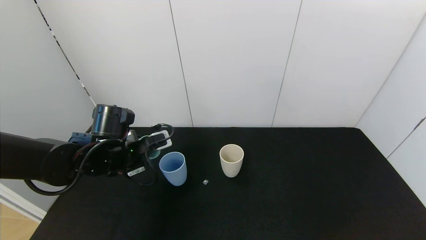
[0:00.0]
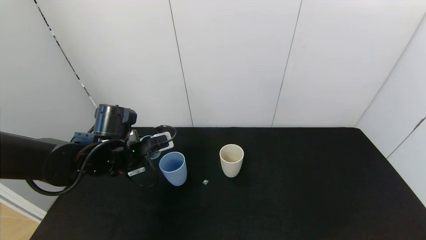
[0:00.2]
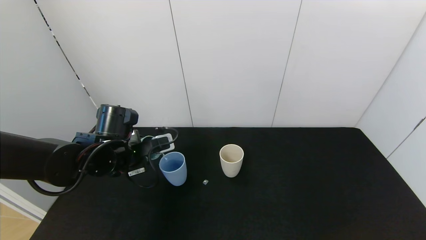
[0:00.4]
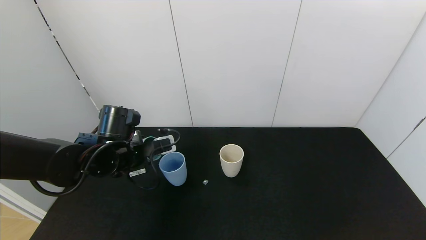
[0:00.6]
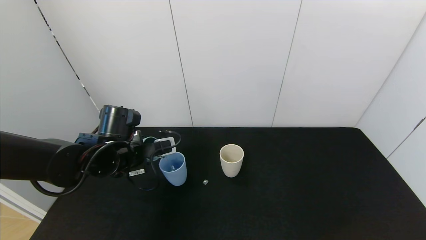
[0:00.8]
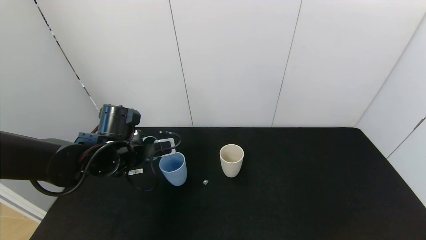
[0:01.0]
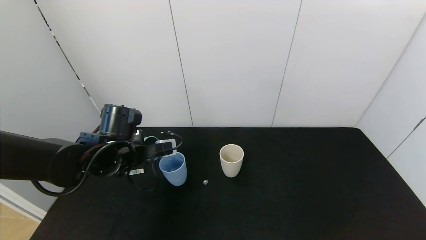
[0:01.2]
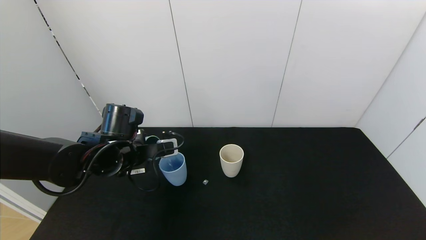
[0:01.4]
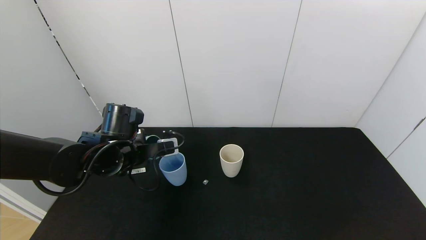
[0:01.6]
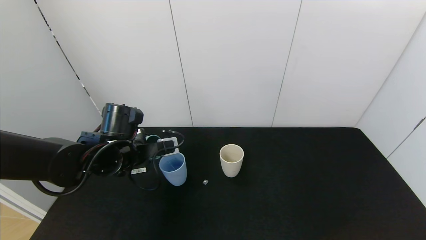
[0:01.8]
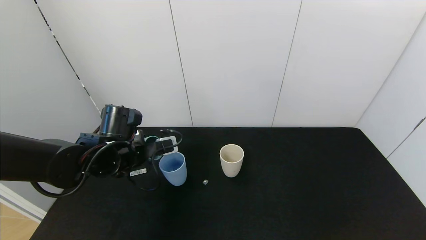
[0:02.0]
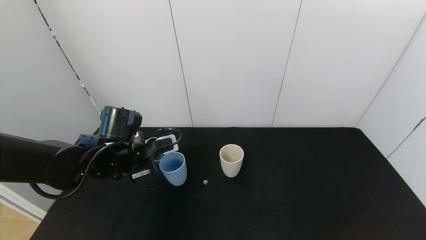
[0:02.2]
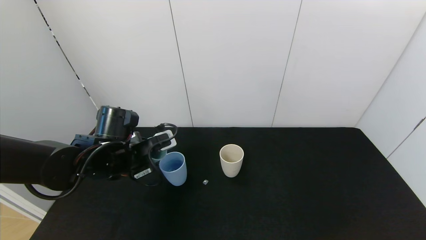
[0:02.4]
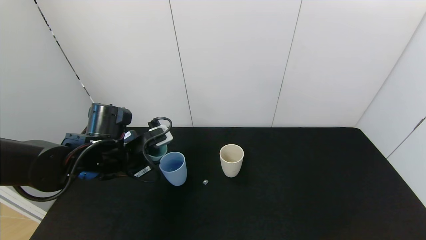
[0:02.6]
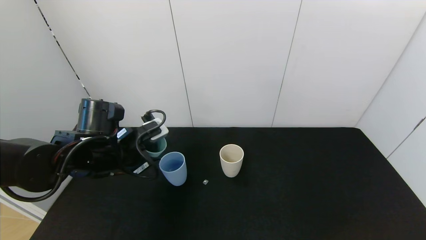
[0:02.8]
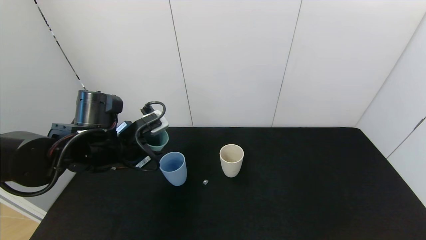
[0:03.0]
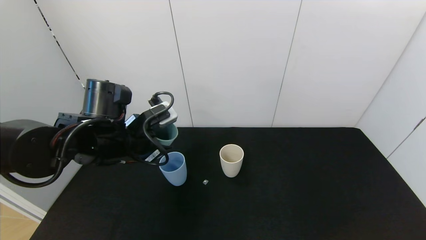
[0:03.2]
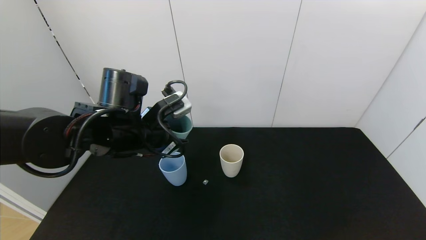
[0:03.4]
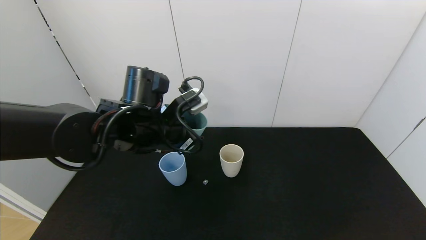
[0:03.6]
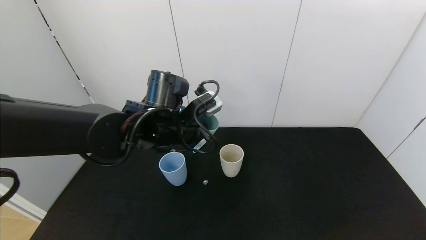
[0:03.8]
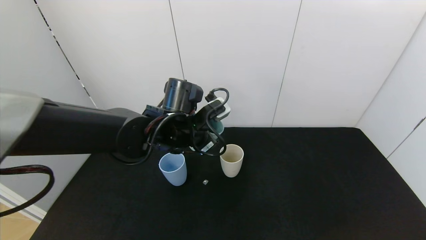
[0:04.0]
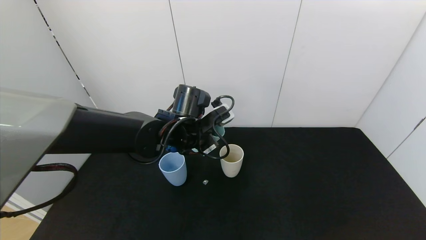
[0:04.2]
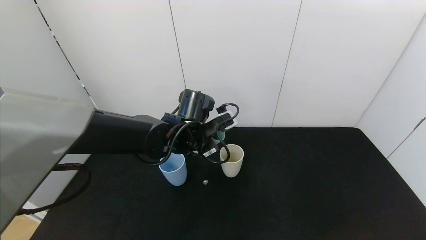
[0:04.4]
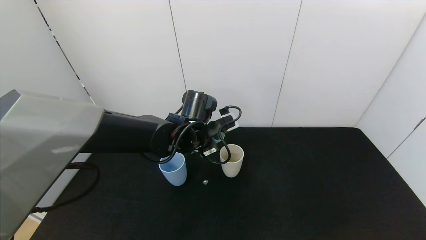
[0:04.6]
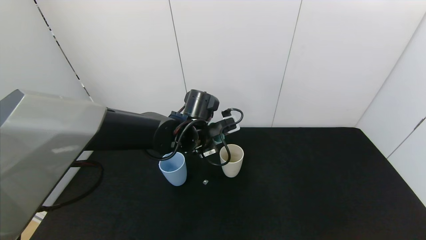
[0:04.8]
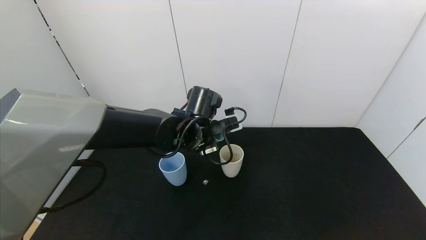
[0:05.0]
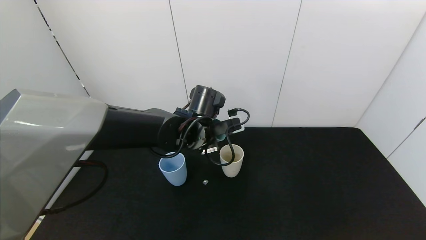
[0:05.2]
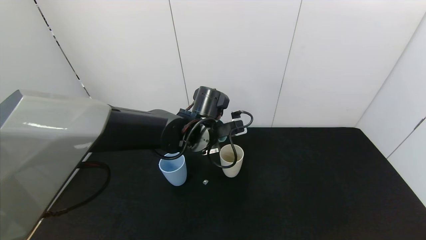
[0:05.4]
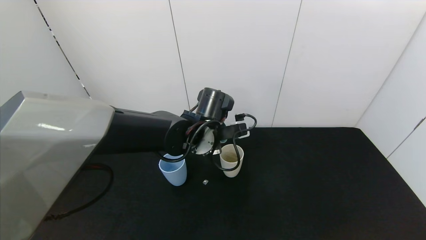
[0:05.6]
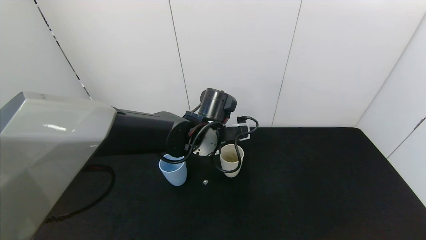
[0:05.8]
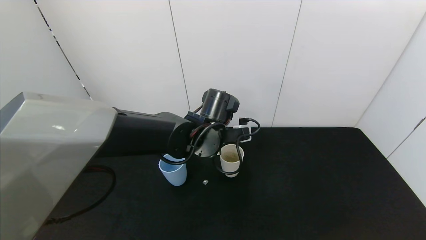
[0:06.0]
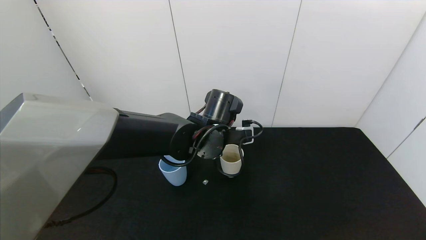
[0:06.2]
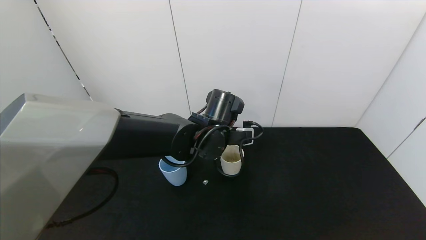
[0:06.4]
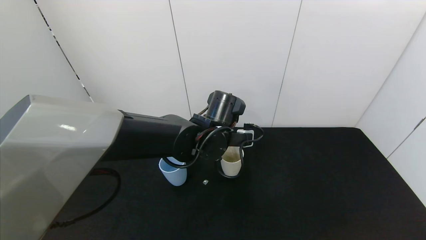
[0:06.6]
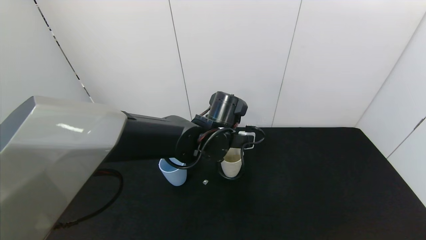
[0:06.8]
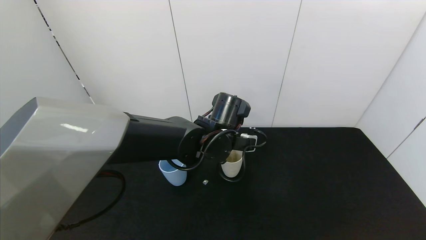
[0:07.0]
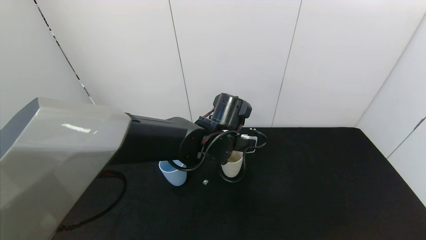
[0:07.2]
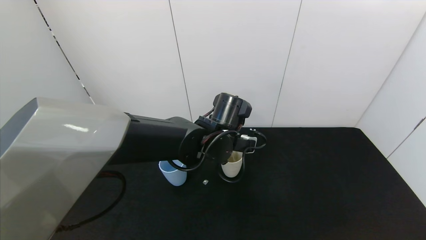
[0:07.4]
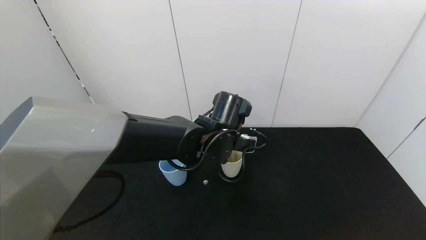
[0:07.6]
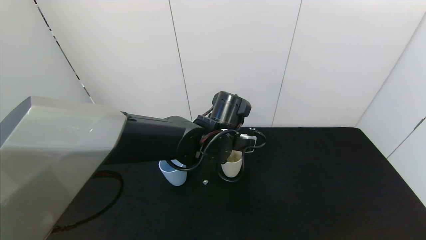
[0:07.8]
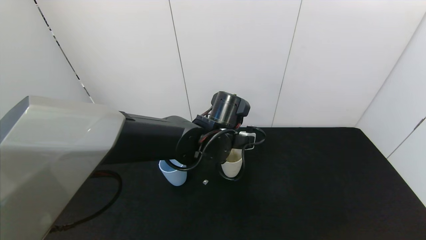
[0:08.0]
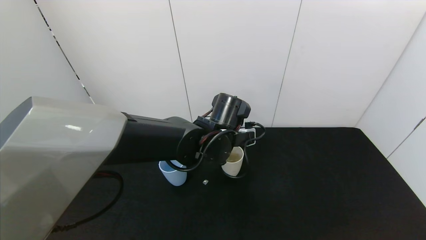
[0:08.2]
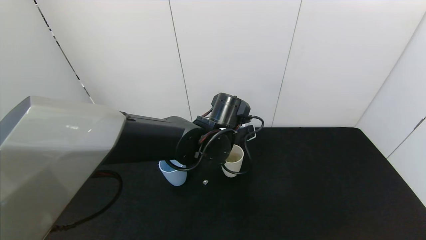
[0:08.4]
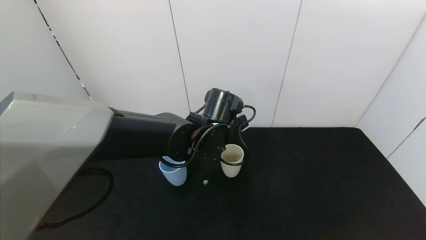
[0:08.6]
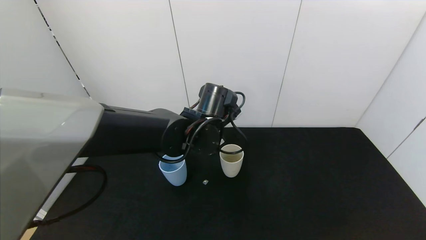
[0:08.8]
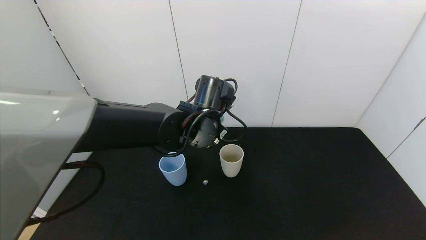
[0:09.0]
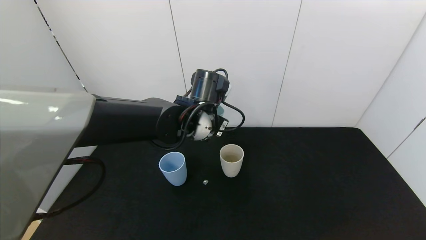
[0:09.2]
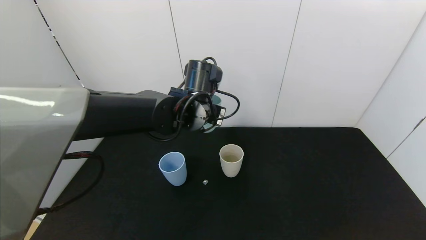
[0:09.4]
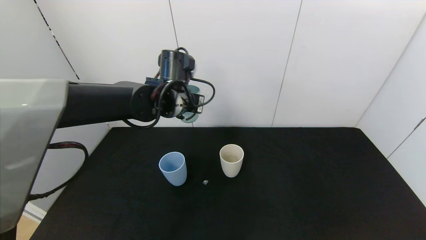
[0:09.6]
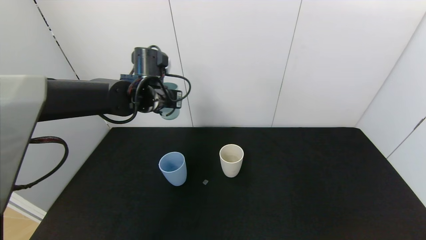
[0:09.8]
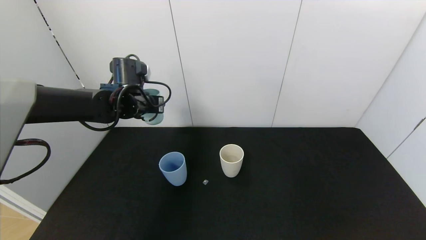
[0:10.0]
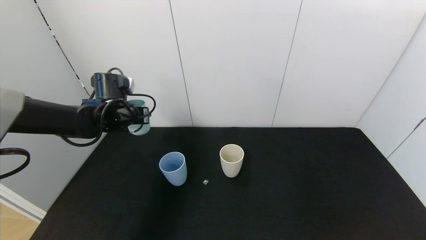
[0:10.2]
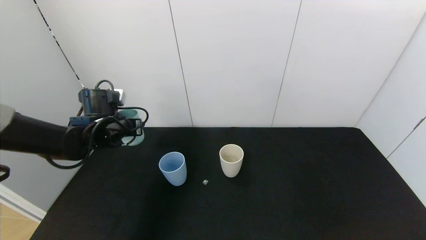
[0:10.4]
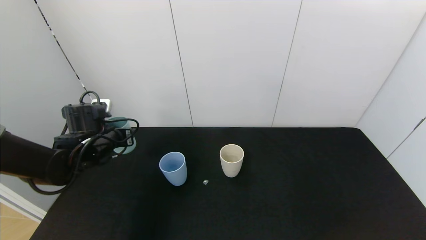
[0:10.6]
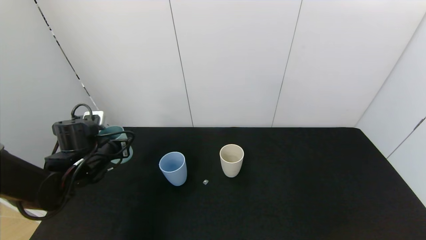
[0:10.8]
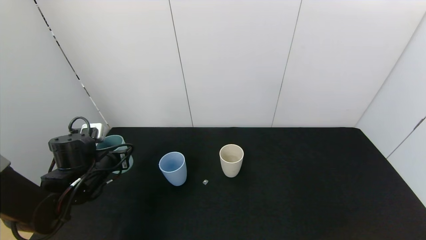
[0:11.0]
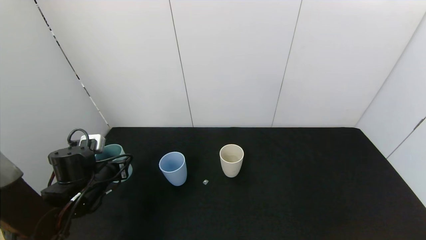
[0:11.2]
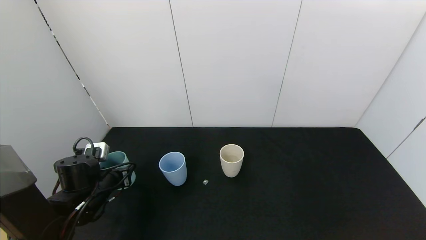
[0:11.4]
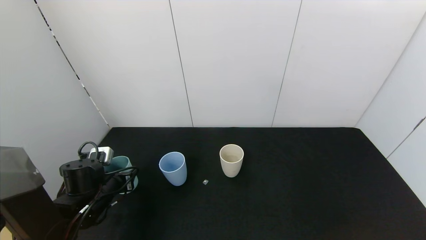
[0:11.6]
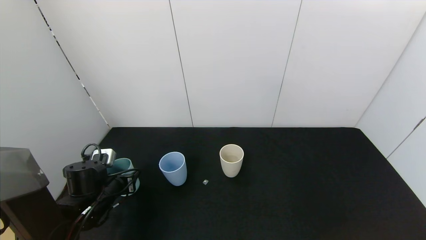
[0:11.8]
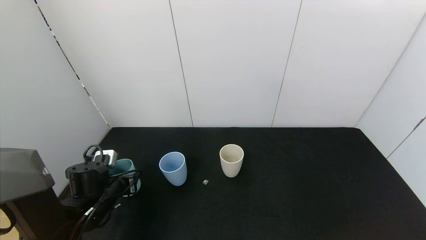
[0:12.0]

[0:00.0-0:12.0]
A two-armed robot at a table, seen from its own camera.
Task of the whole recording: use the gripper to pour the water into the other two cups on black table.
Step, 0:00.0 to 0:02.8: Pour water from green cup to blue cup with the left gripper.
Step, 0:03.0 to 0:08.8: Pour water from green cup to white cup with the left gripper.
0:00.0 to 0:01.6: The grippers move only a little.
0:03.0 to 0:04.4: The left gripper shifts some 15 cm to the right and forward.
0:06.0 to 0:07.6: The grippers make only small movements.
0:09.0 to 0:10.4: The left gripper is displaced to the left by about 25 cm.
0:10.4 to 0:12.0: The left gripper heads downward and backward, covering roughly 15 cm.

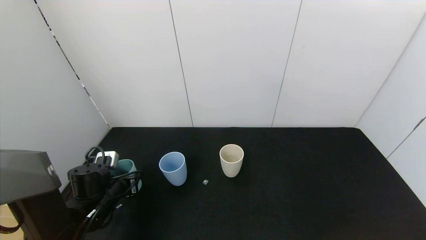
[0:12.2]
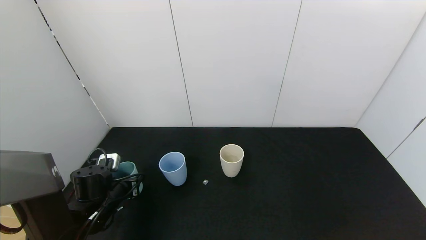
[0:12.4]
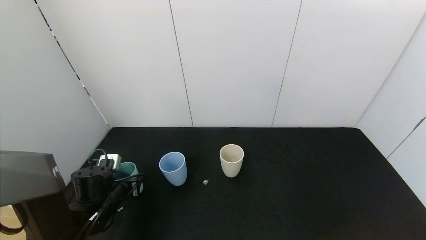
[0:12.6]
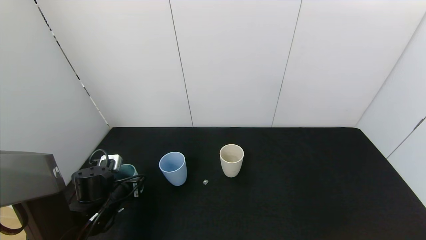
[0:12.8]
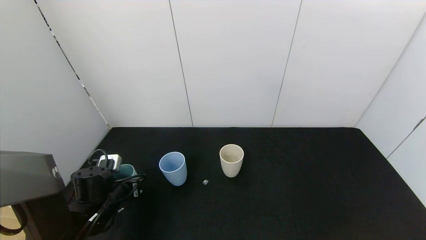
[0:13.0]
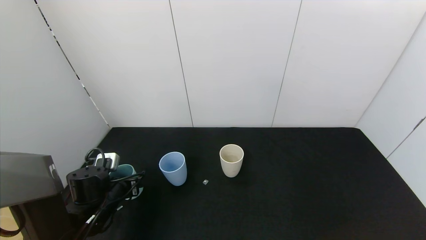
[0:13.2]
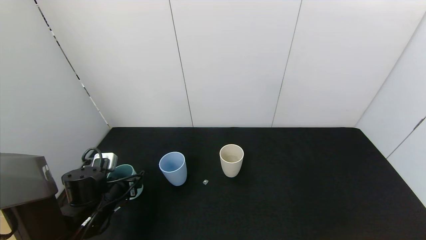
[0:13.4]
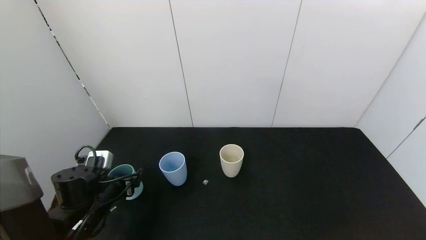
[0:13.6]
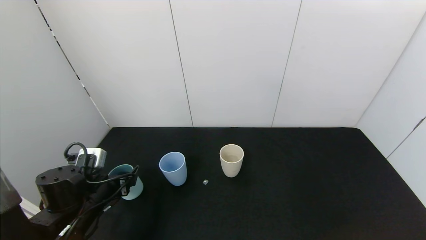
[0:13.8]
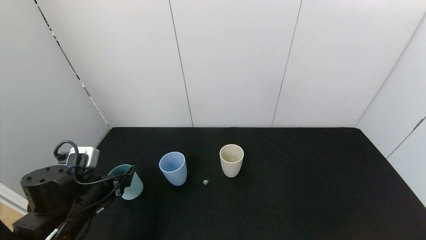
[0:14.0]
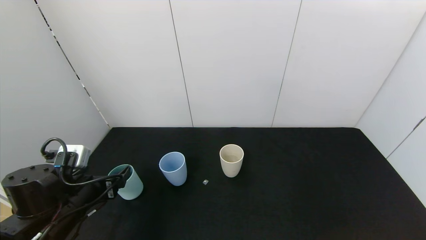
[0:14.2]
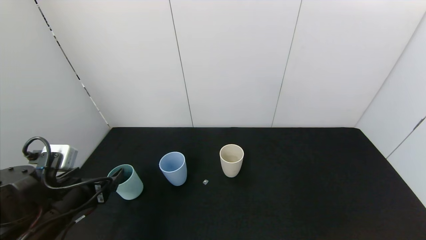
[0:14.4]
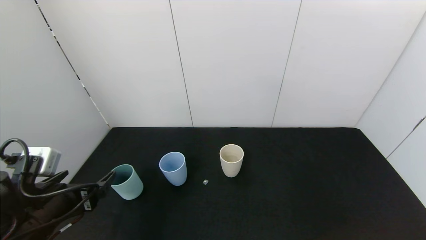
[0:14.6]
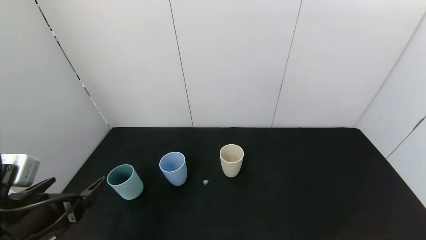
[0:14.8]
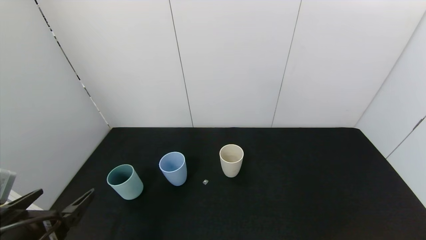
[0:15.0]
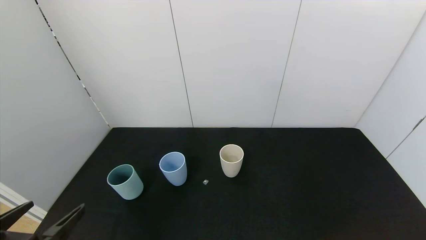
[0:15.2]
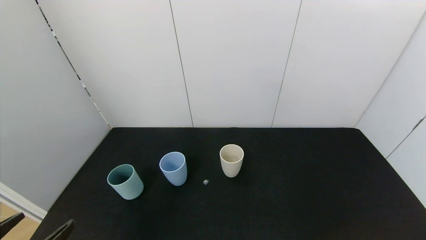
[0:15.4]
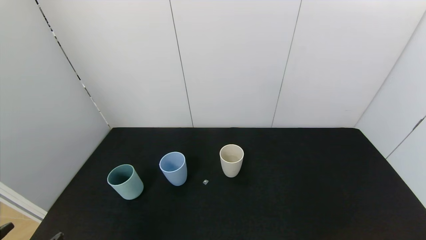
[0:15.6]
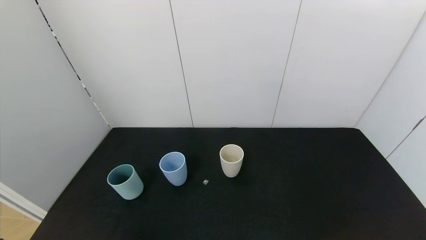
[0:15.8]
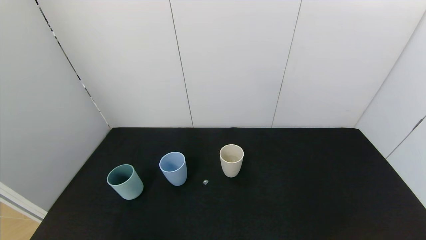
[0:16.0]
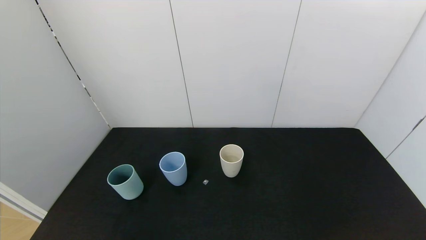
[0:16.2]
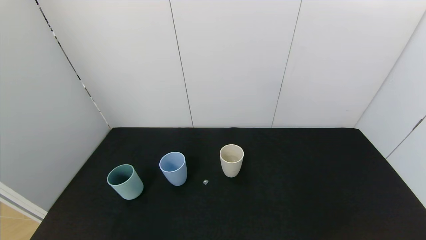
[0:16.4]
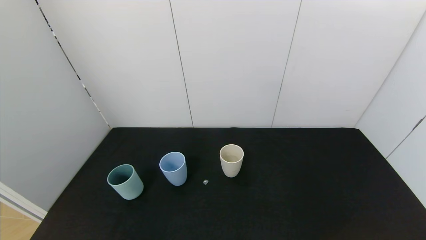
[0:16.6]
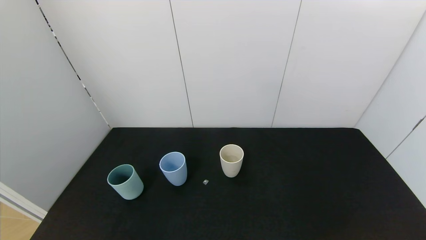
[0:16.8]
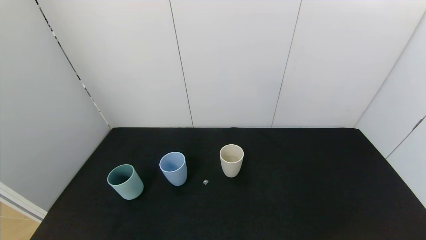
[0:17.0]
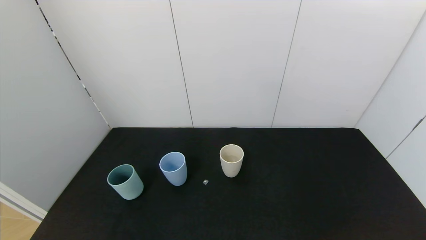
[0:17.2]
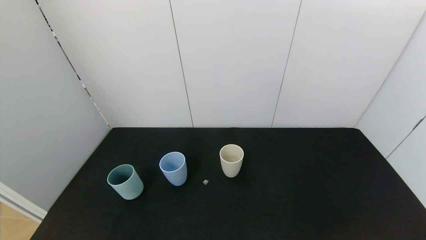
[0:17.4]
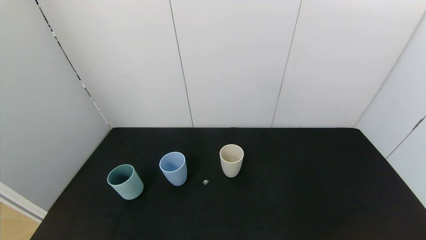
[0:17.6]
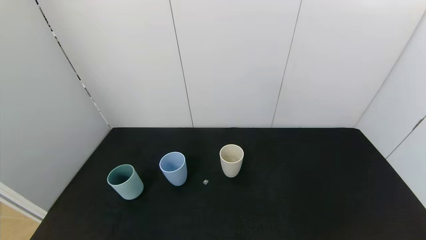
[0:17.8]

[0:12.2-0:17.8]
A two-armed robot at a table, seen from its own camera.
Task of the whole recording: use the gripper to pour the water into the other two cups on black table.
Step, 0:12.2 to 0:14.8: Place the green cup with the left gripper.
0:12.2 to 0:13.6: The left gripper opens up.
0:13.6 to 0:15.0: The left gripper heads backward and upward, covering roughly 20 cm.
0:15.0 to 0:16.4: The left gripper is displaced backward and downward by some 15 cm.
